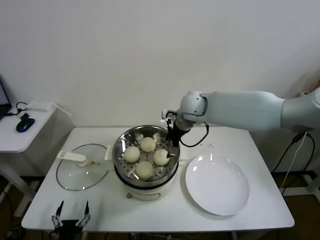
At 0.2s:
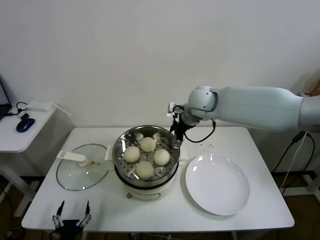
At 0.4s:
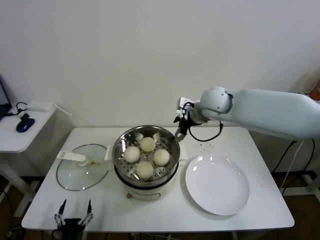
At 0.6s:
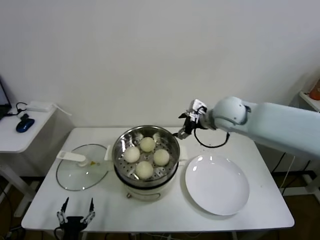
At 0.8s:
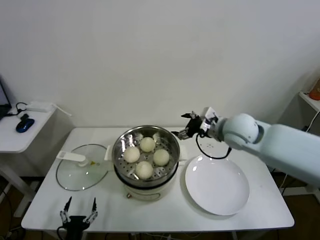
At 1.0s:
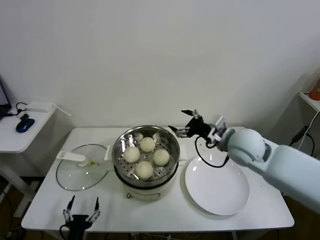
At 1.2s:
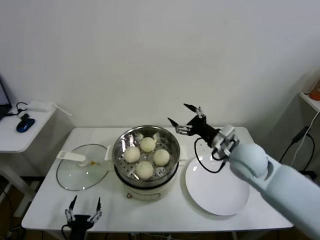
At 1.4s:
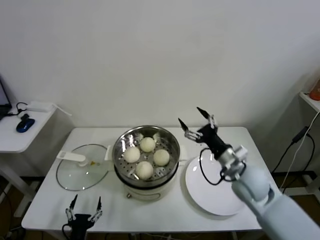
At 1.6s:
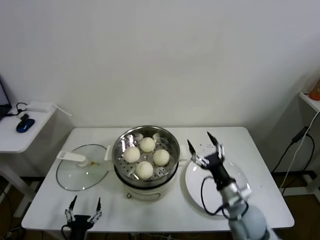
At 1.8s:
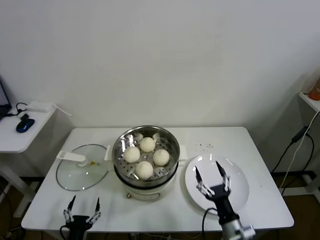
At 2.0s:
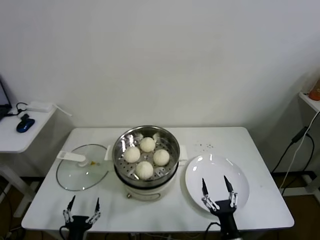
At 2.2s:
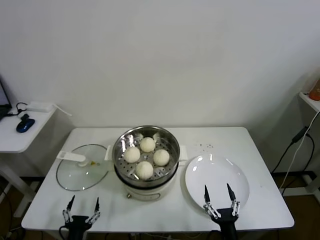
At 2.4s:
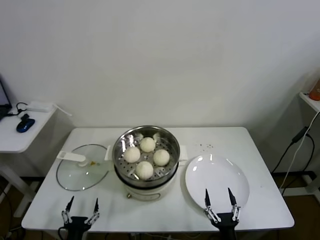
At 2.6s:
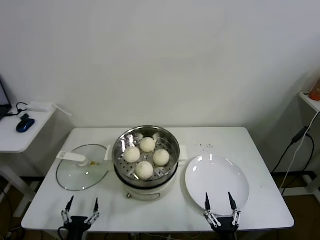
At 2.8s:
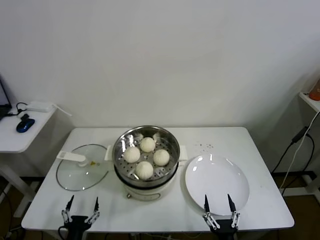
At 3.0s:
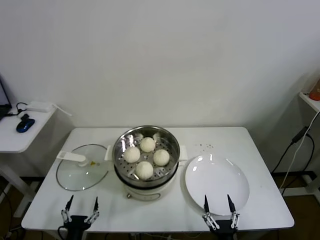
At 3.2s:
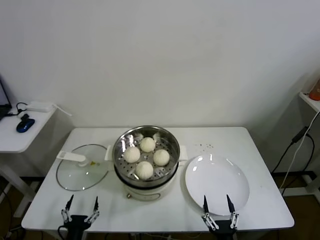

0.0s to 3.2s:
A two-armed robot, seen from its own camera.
Task of the whole recording: take steamed baozi put them in steamer.
0.0s to 1.6s: The right gripper is displaced backward, downward and to the right by roughly 35 cm.
1.6s to 3.2s: The right gripper moves backward and downward, about 25 cm.

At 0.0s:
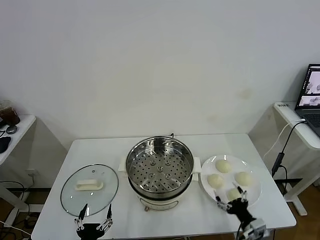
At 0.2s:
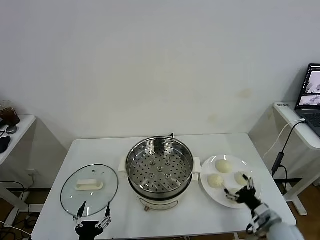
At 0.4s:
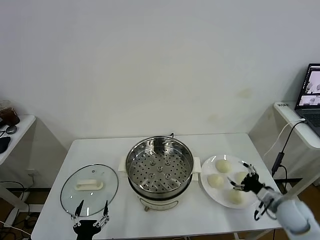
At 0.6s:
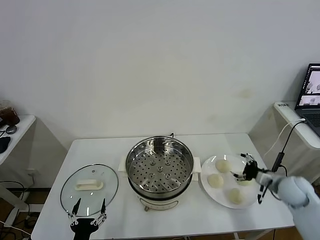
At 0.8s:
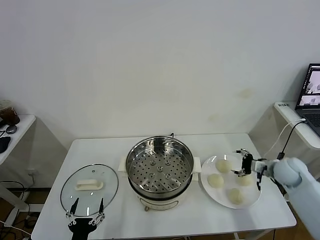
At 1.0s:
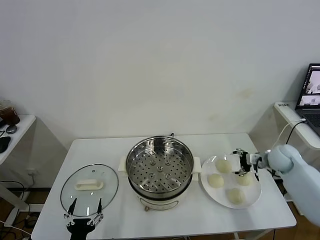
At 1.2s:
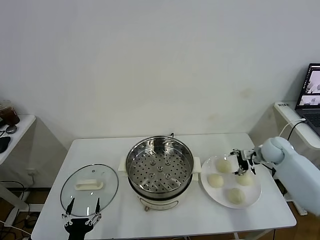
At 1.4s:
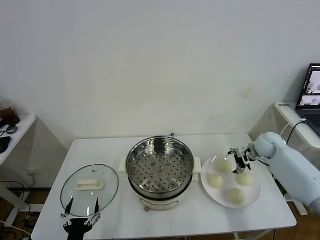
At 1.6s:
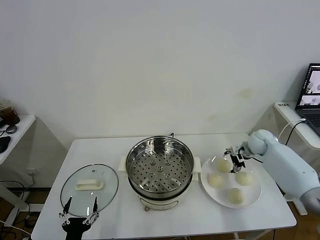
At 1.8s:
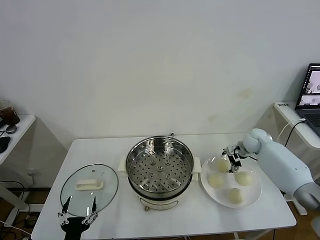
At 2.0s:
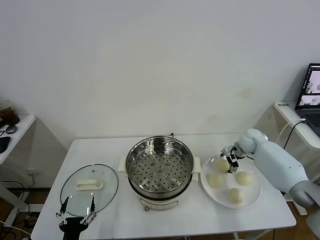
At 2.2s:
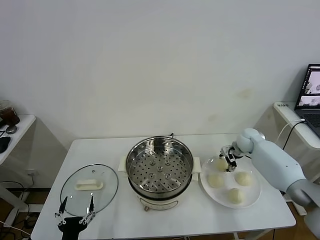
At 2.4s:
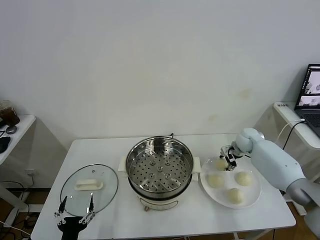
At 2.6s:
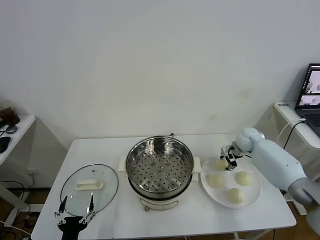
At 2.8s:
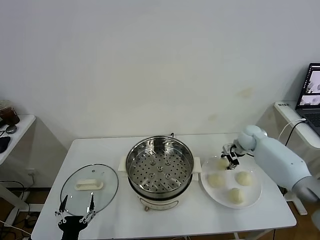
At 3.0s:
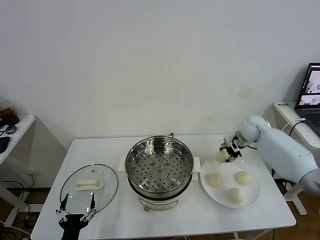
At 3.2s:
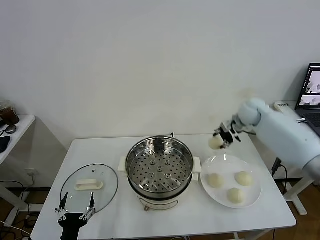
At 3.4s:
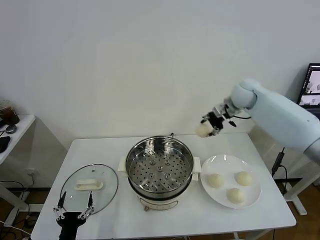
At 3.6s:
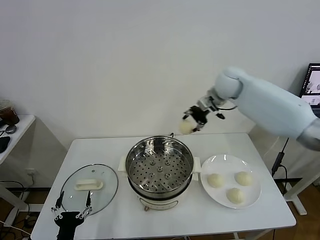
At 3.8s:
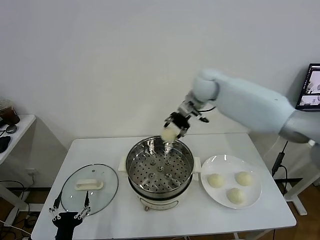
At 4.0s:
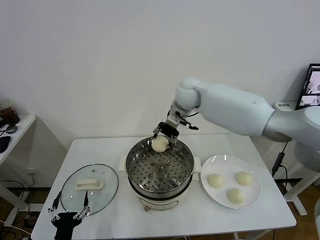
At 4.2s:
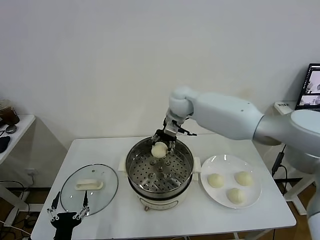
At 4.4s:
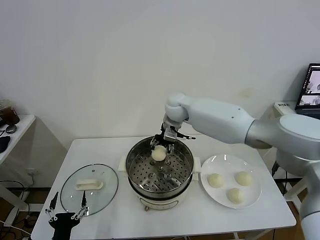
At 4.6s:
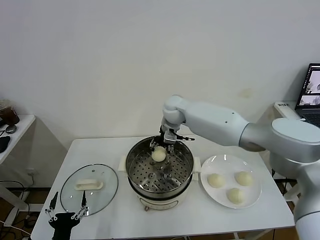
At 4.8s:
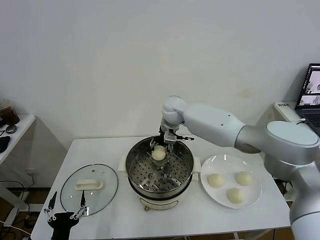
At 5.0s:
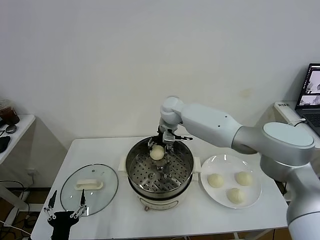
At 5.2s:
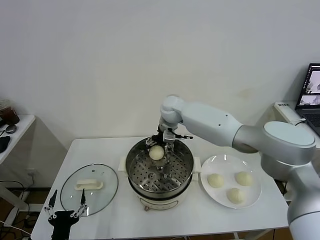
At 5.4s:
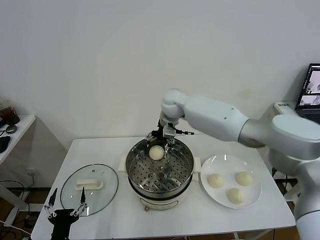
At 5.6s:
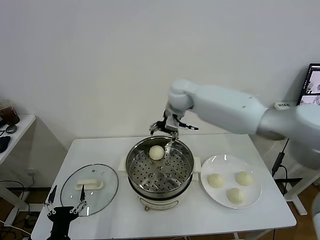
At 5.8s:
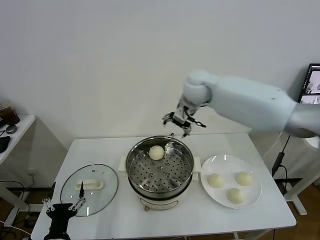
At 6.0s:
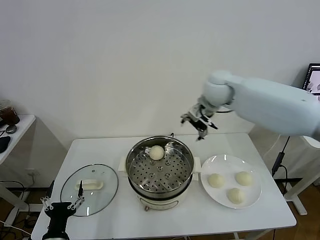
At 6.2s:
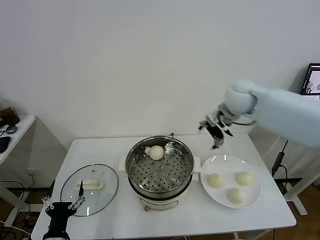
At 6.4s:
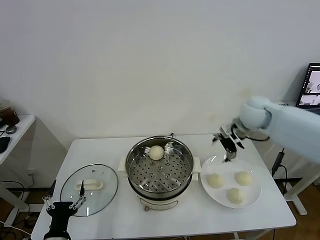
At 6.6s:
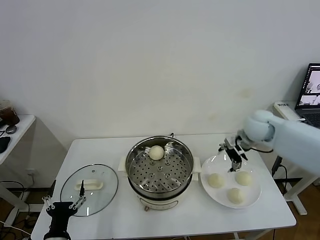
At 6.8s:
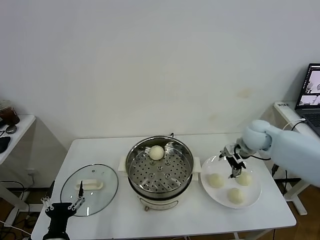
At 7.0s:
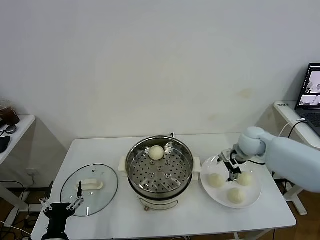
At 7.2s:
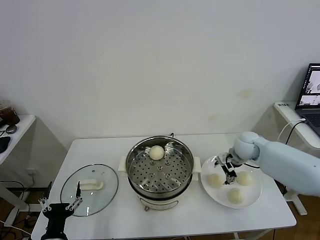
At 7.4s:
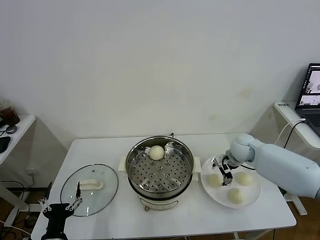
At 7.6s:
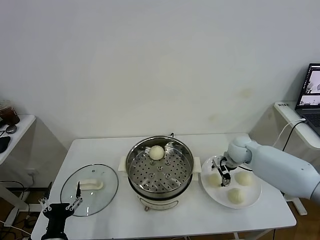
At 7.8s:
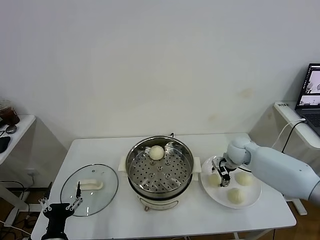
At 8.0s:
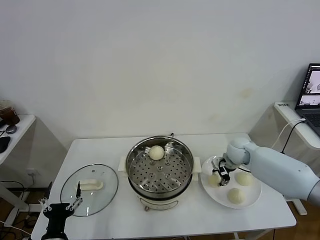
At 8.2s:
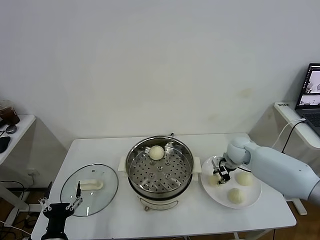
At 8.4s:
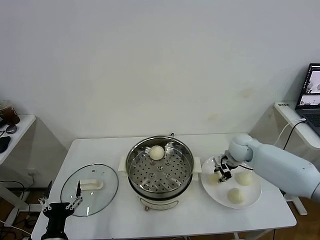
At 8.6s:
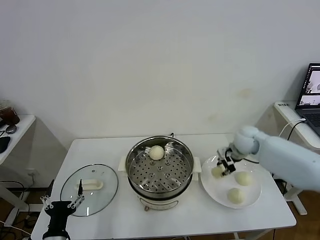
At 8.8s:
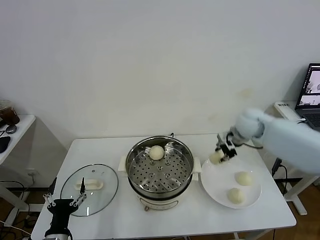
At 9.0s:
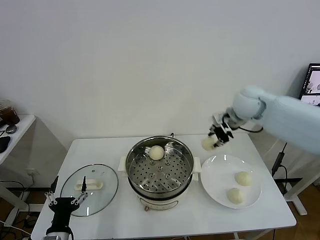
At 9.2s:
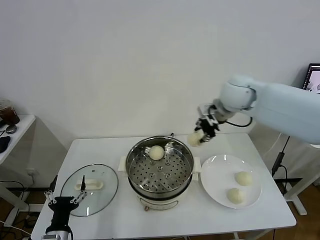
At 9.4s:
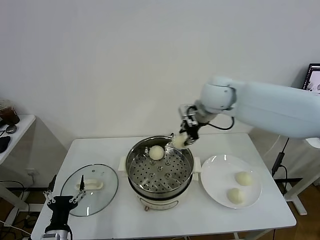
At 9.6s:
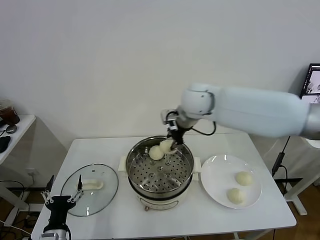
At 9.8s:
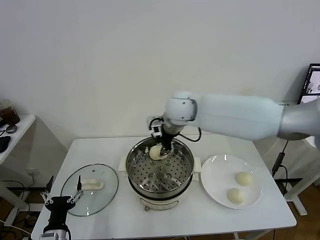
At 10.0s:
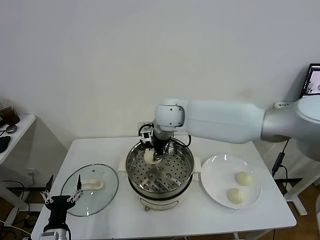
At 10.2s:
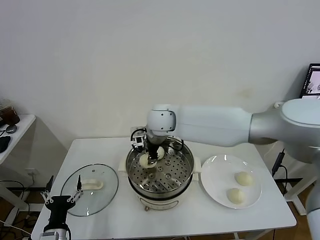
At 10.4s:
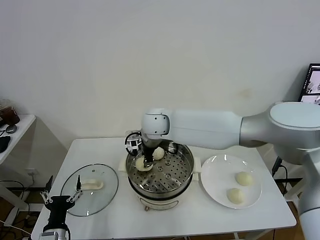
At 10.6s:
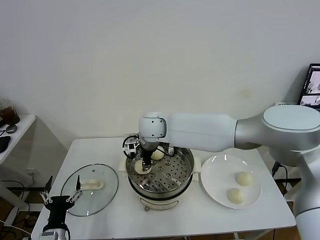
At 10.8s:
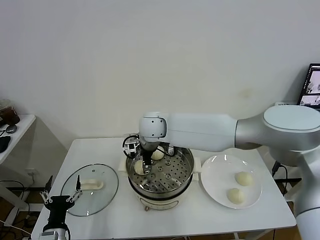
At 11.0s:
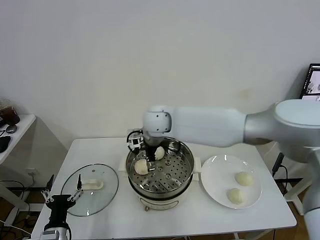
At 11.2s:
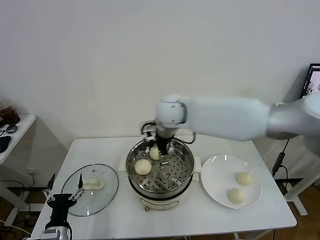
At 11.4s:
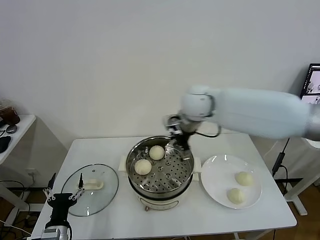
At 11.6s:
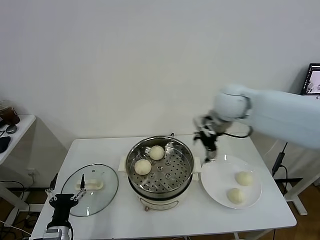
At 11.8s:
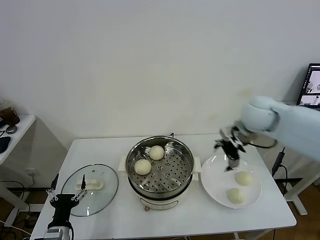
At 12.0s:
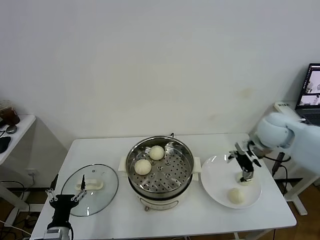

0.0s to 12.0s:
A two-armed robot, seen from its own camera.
Task of the whole recording: take steamed baozi put them in steamer.
Step, 0.0s to 2.6s: Grasp the baozi in the plate with right gripper.
Step, 2.8s to 5.2s: Place the baozi on the steamer with right gripper.
Step, 5.6s to 8.2s: Grasp the baozi in the plate with right gripper.
Step, 8.4s to 11.0s: Place the baozi on the steamer with right gripper.
1.6s to 3.0s: The right gripper moves upward, roughly 10 cm, and closes up.
3.0s to 4.4s: The right gripper moves to the left, some 30 cm.
4.4s to 6.0s: The right gripper moves to the right and upward, approximately 15 cm, and opens its fingers.
6.0s to 7.6s: The right gripper moves downward and to the right, some 25 cm.
7.6s to 9.0s: The right gripper heads upward, covering about 20 cm, and closes up.
9.0s to 10.4s: The right gripper moves to the left, roughly 25 cm.
10.4s to 12.0s: The right gripper heads to the right, covering approximately 35 cm, and opens up.

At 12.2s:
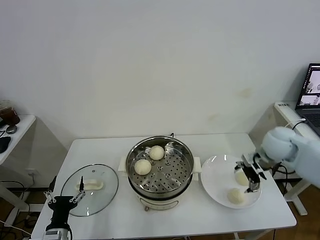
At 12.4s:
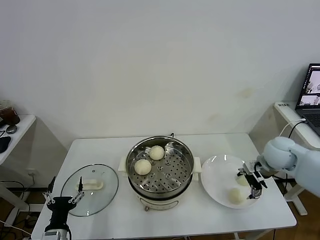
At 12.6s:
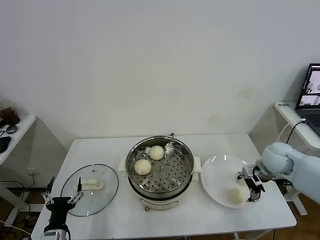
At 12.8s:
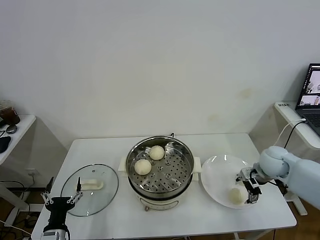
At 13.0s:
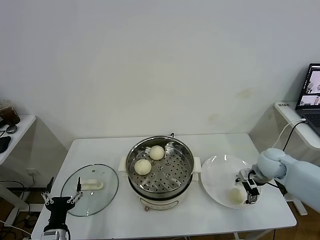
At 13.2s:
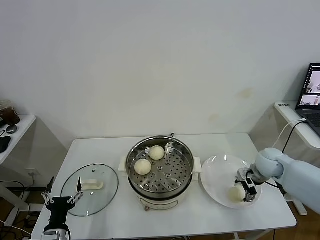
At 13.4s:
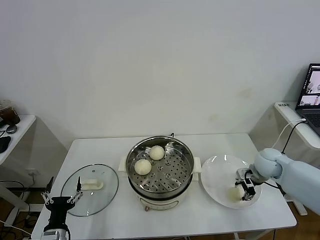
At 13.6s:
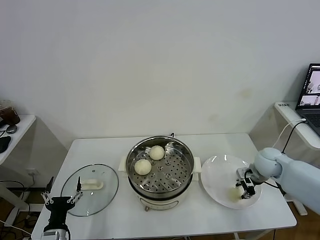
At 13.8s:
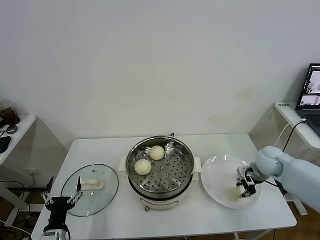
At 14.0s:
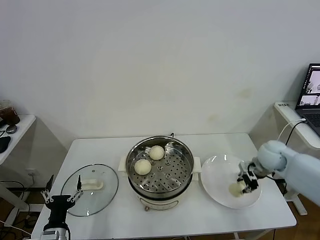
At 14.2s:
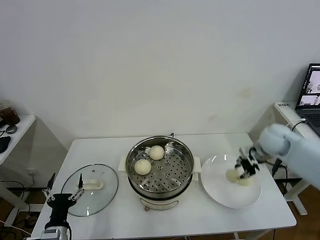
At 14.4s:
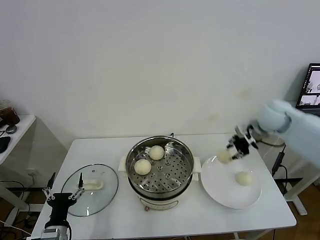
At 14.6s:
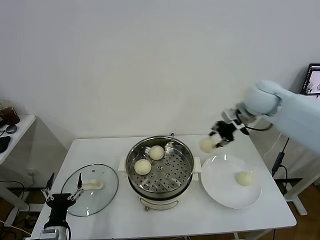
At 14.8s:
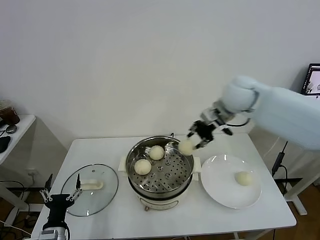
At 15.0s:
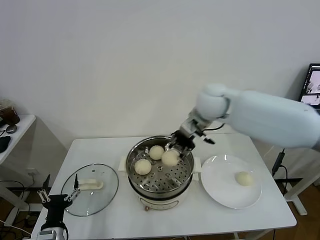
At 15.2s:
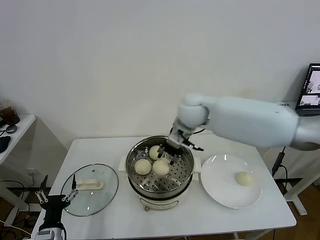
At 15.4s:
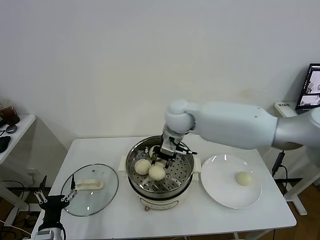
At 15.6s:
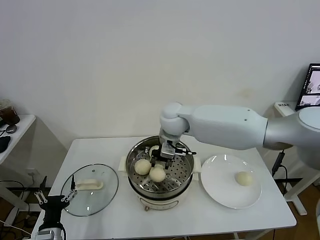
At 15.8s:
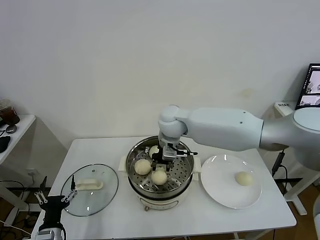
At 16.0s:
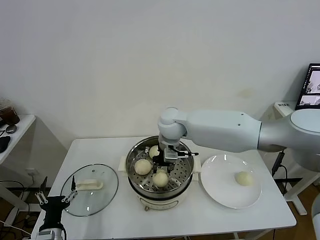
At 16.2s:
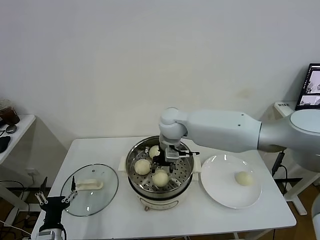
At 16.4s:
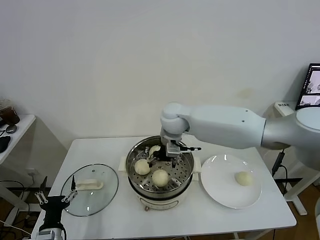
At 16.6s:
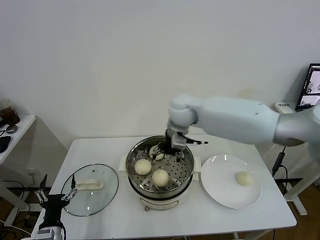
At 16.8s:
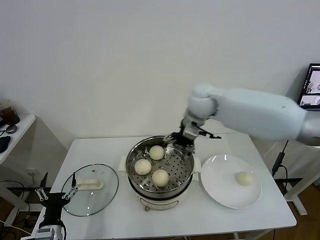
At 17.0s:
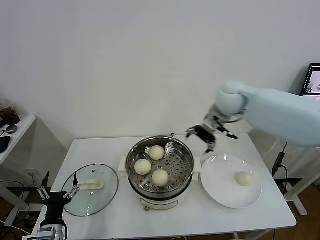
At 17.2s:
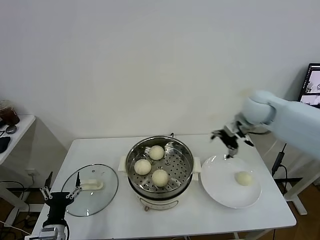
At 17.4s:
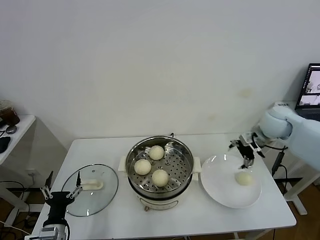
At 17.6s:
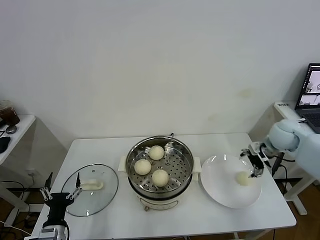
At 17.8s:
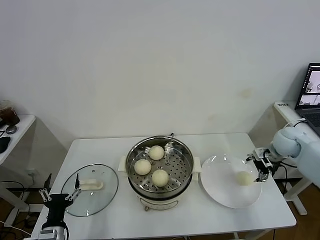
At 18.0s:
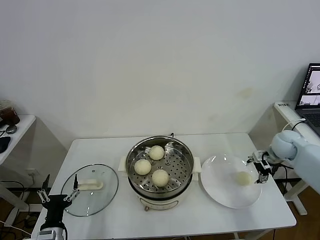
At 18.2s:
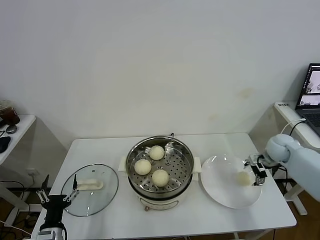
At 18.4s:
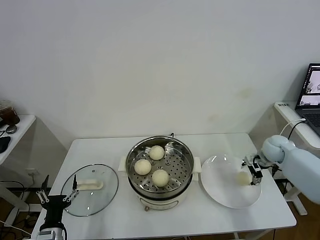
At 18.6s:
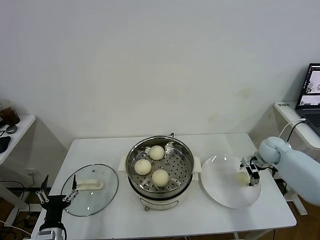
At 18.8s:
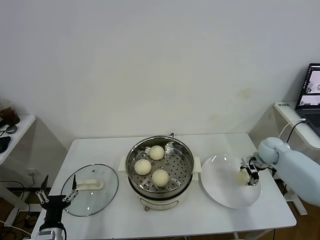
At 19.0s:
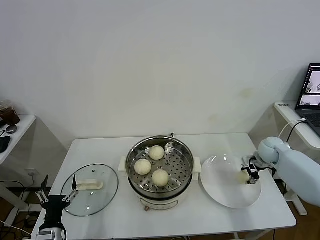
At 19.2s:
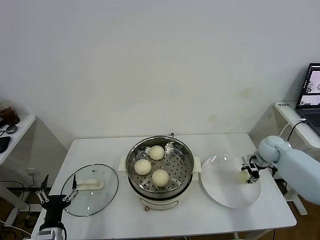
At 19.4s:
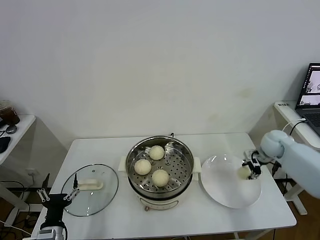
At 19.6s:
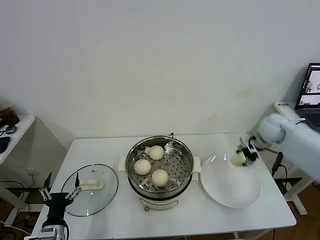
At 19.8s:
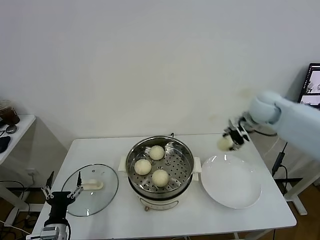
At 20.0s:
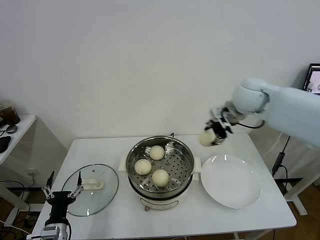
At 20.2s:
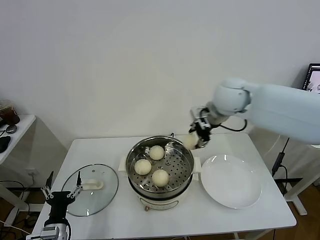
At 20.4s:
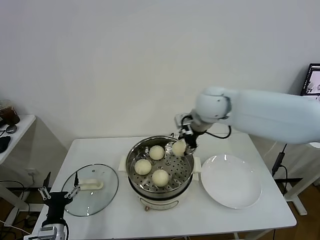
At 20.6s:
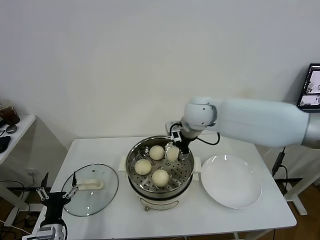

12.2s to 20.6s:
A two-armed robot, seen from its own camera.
Task of the whole recording: take steamed baozi put them in steamer.
Step, 12.2s to 13.8s: Grasp the baozi in the plate with right gripper.
Step, 14.0s to 16.4s: Place the baozi on the steamer with right gripper.
Step, 16.6s to 19.2s: Grasp the baozi in the plate with right gripper.
12.2s to 13.6s: The right gripper is displaced downward by some 10 cm, and closes.
13.6s to 15.0s: The right gripper goes some 30 cm to the left and upward.
15.0s to 16.4s: The right gripper is displaced to the left and downward by roughly 10 cm, and opens its fingers.
16.4s to 17.8s: The right gripper is displaced to the right by about 40 cm.
17.8s to 19.2s: The right gripper heads downward, covering about 5 cm, and closes its fingers.
19.2s to 20.6s: The right gripper goes some 35 cm to the left and upward.
